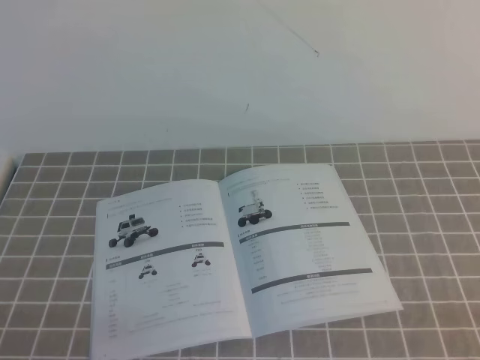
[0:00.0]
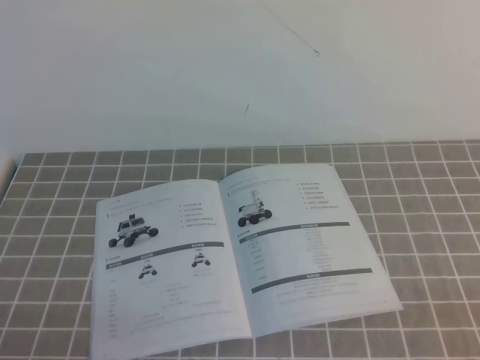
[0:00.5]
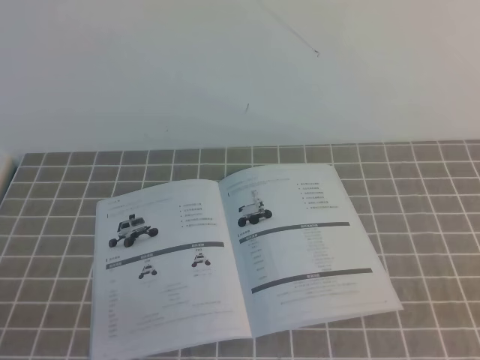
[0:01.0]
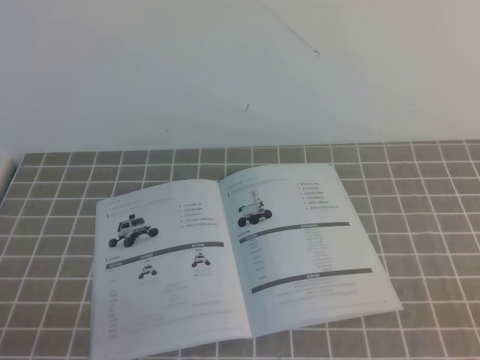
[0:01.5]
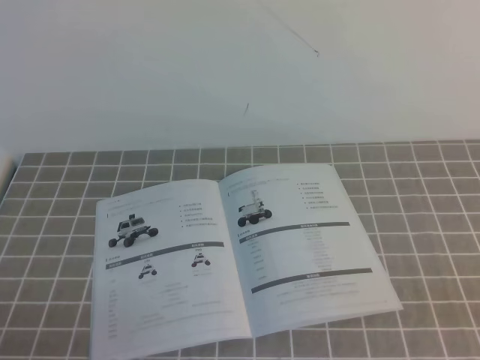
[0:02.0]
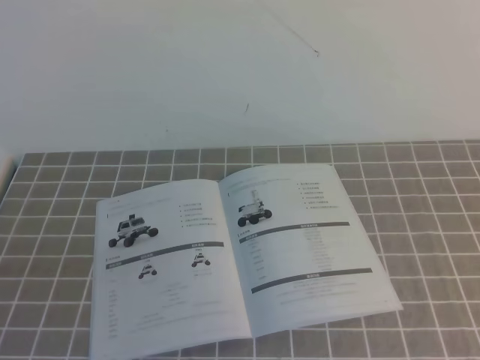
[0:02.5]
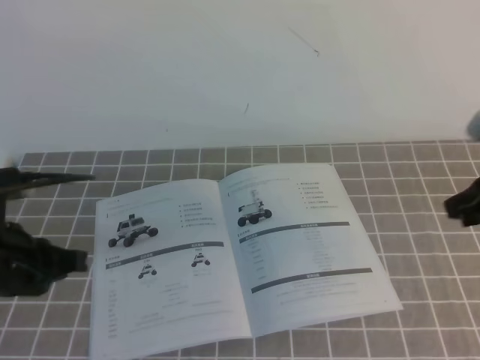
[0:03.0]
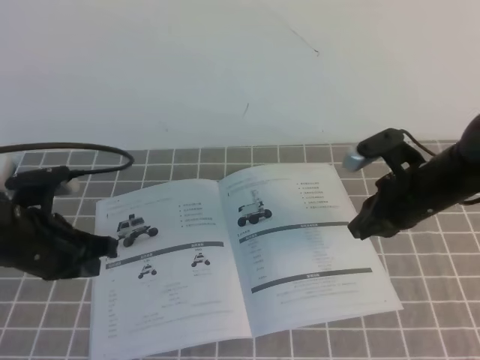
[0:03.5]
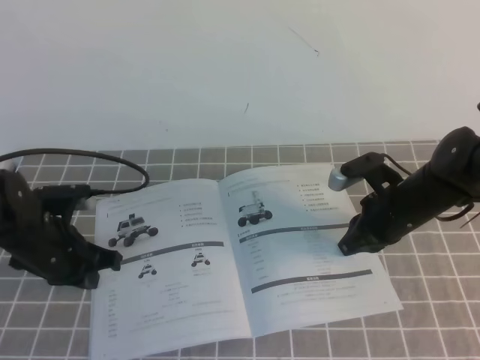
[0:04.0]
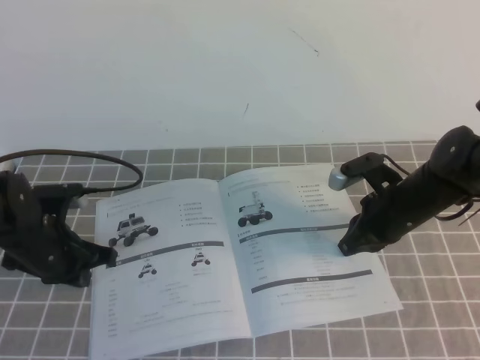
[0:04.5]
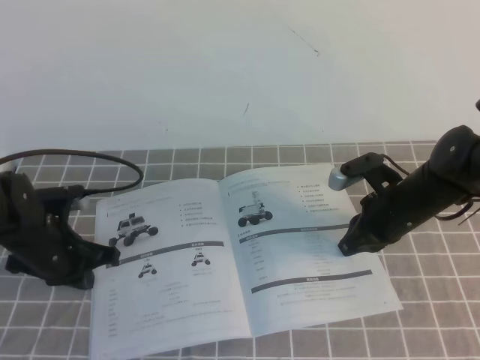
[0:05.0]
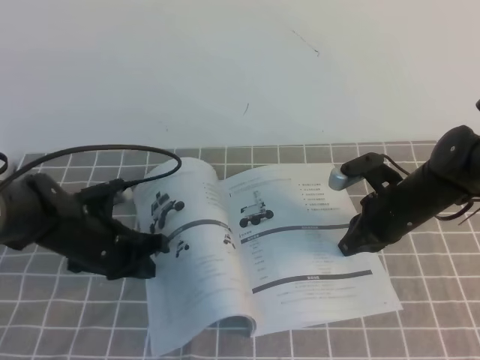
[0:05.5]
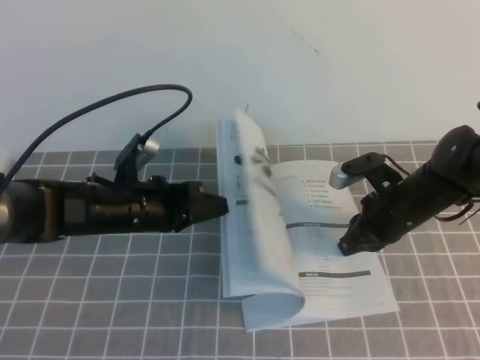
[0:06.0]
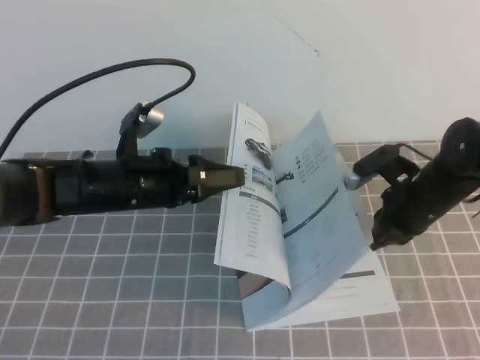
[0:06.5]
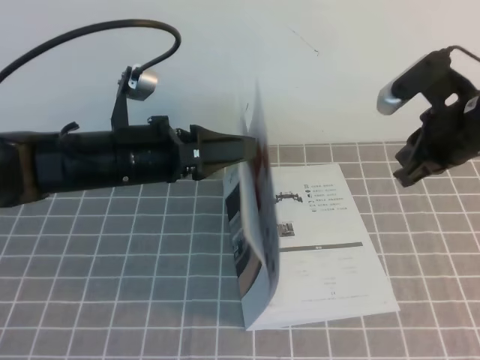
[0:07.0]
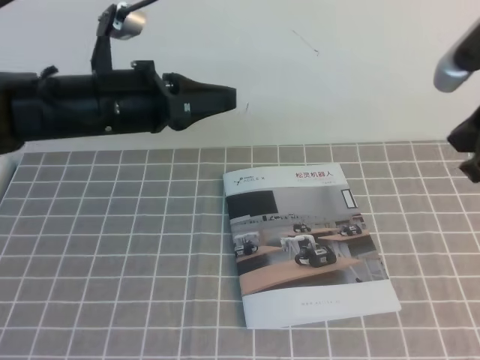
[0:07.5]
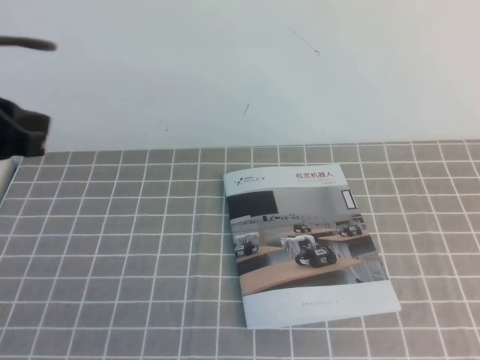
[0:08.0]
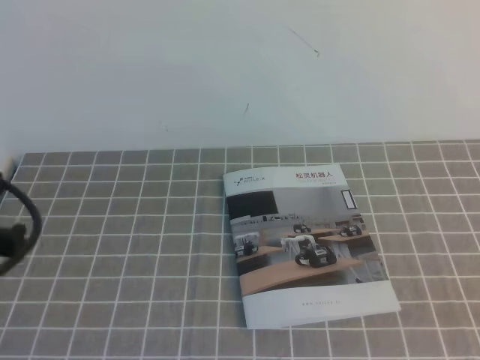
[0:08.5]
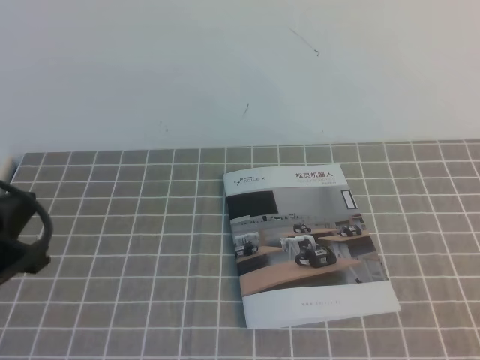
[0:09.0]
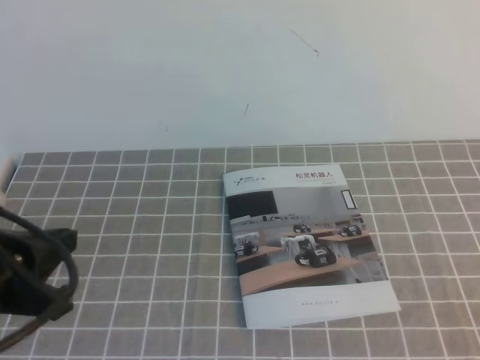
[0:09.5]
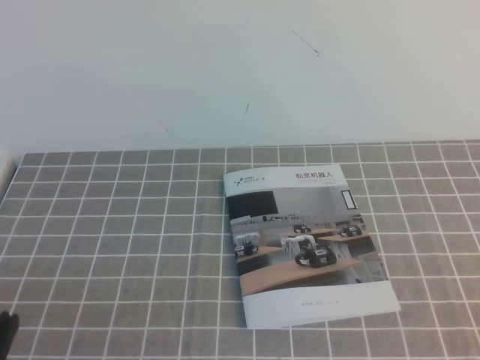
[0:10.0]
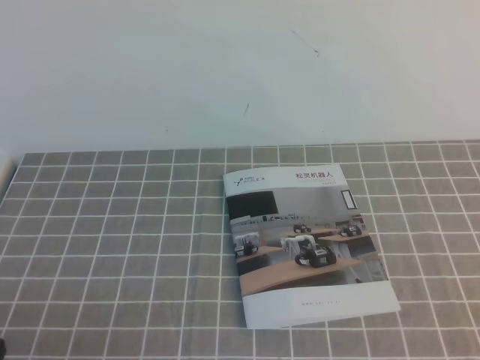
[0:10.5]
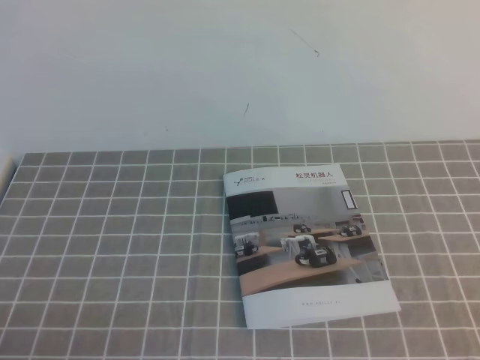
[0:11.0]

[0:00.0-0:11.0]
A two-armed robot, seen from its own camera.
Task of the whole recording: on the grey tablecloth, hold the book with one hand and close it with the other.
0:02.0 to 0:03.5: The left gripper travels forward by some 25 cm. Meanwhile the right gripper goes some 35 cm forward and to the left.
0:03.5 to 0:05.5: The two grippers go about 5 cm downward.
0:05.5 to 0:07.5: Both grippers move upward, roughly 20 cm. The left gripper opens, then closes again.
0:07.5 to 0:09.0: The right gripper travels backward and downward by roughly 25 cm; the left gripper heads backward and to the left, covering about 20 cm.
0:09.0 to 0:11.0: The left gripper goes approximately 15 cm backward and downward.
